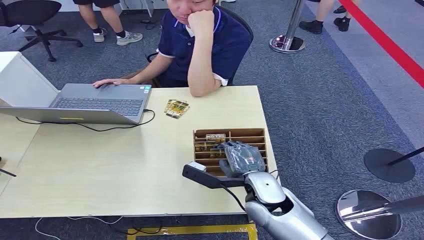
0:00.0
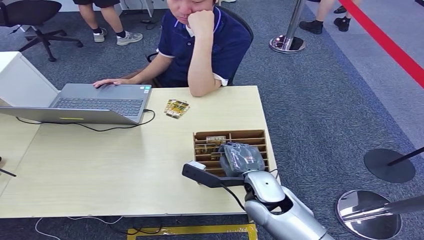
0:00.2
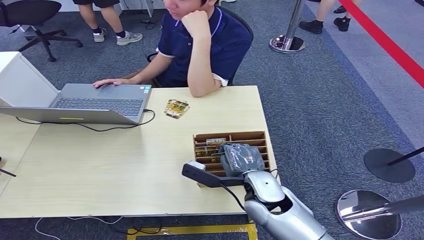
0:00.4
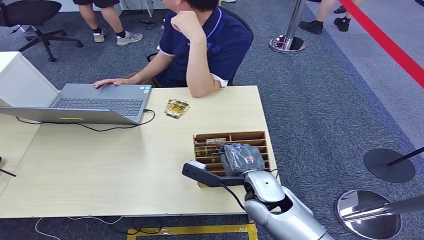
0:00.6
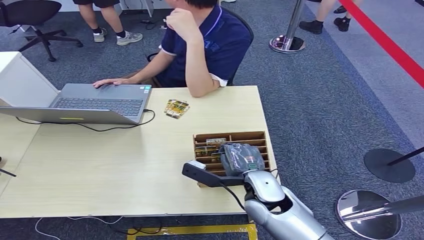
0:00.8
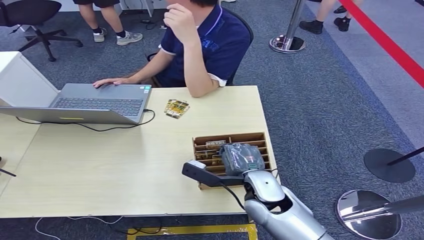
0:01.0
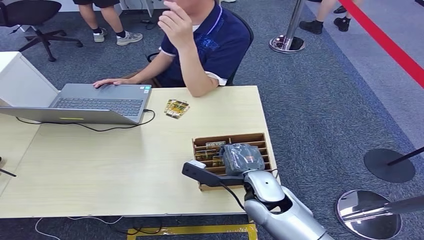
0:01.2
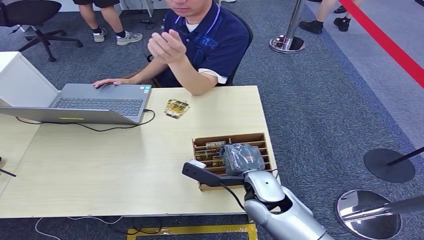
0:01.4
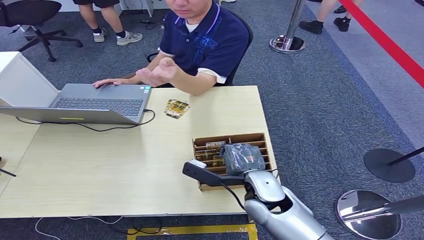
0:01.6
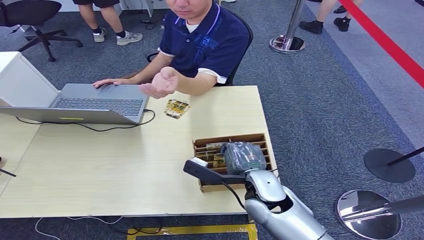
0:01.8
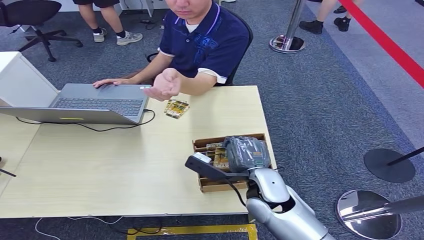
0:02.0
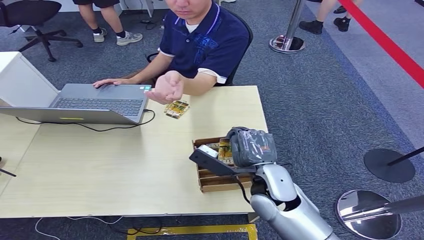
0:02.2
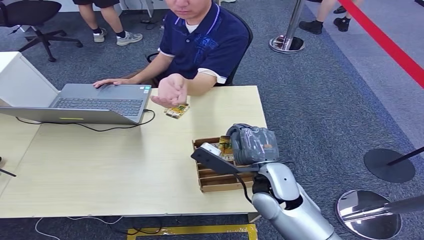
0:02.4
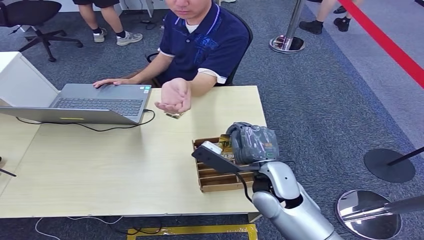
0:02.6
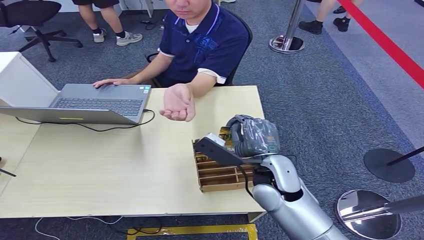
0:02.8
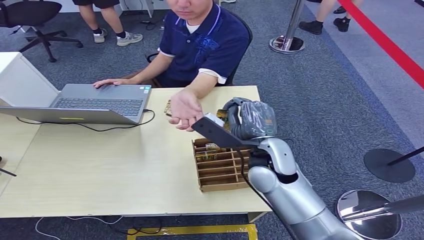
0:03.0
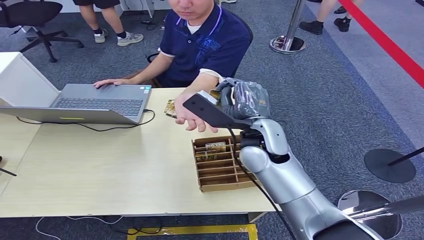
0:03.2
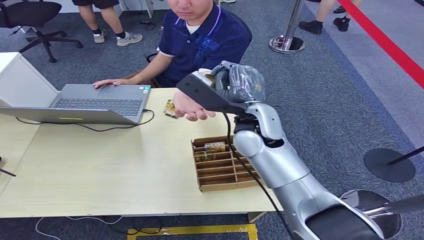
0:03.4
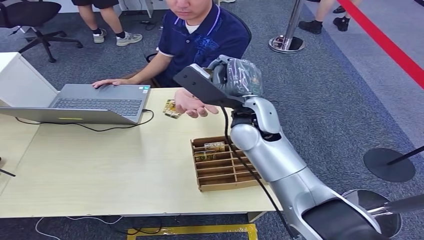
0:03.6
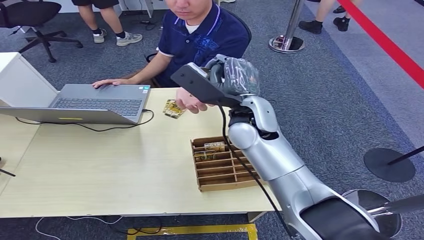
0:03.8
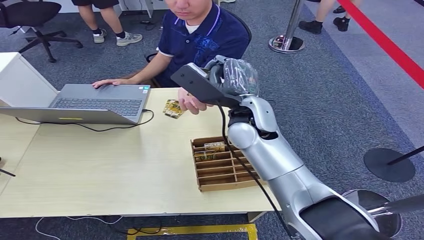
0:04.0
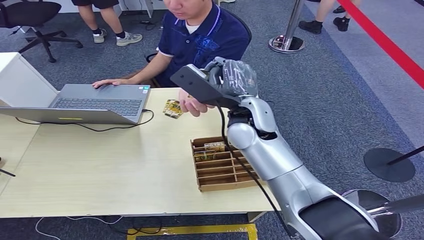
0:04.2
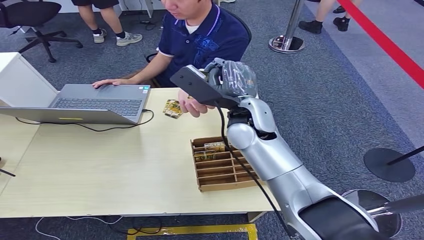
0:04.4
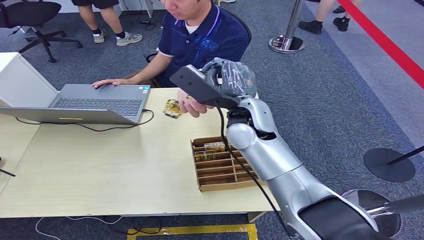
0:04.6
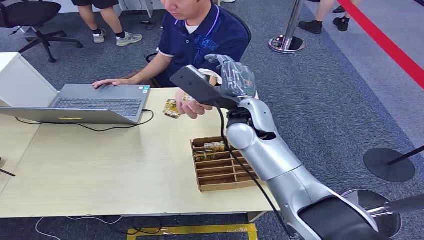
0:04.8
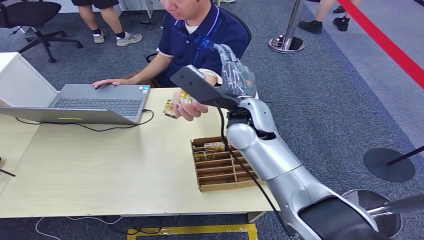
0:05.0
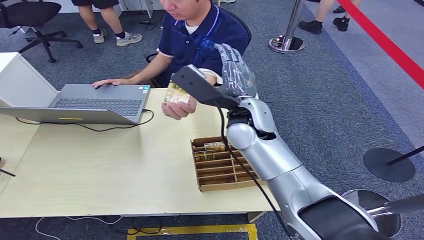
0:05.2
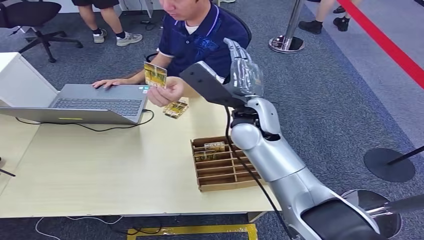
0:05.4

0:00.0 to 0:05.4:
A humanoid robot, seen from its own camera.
Step, 0:00.0 to 0:02.8: Pick up the room card from the card holder.
Step, 0:03.0 to 0:05.2: Hand the room card to the target.
0:01.4 to 0:02.8: The right hand heads upward, covering some 5 cm.
0:02.8 to 0:04.0: The right hand shifts roughly 15 cm forward and upward.
0:04.0 to 0:05.4: Neither hand changes place.
